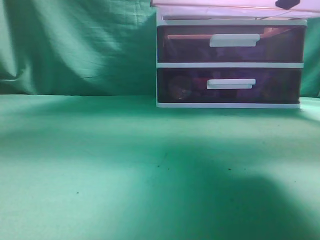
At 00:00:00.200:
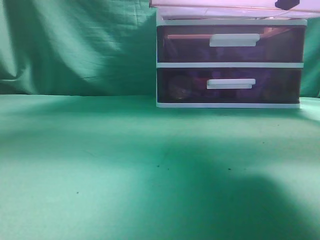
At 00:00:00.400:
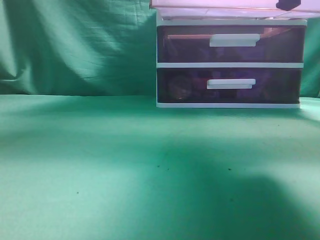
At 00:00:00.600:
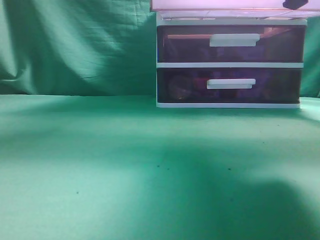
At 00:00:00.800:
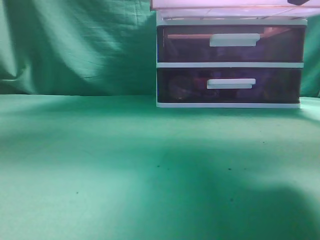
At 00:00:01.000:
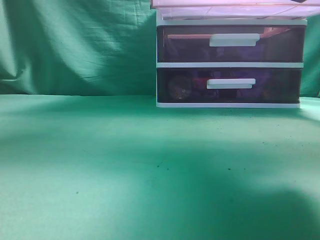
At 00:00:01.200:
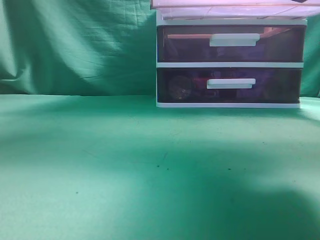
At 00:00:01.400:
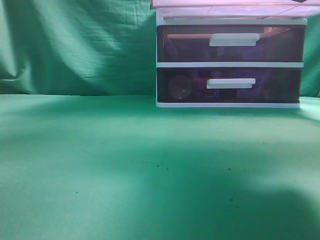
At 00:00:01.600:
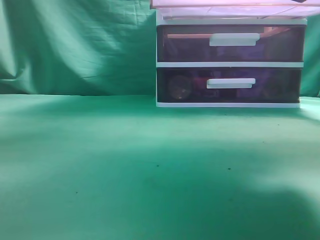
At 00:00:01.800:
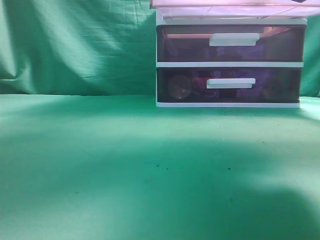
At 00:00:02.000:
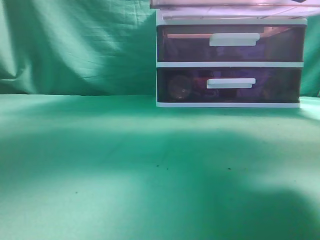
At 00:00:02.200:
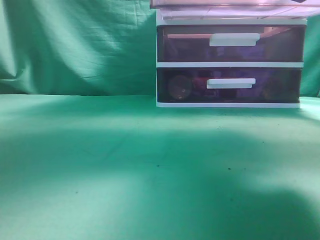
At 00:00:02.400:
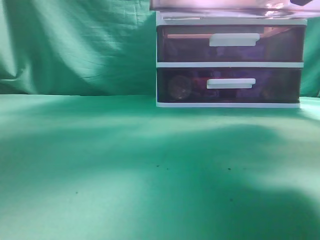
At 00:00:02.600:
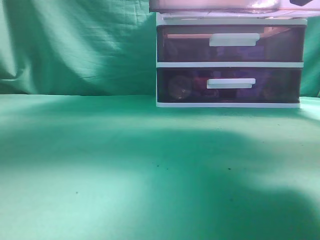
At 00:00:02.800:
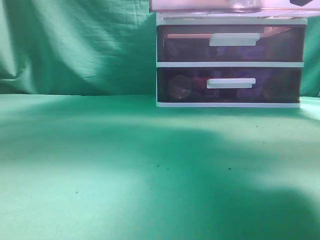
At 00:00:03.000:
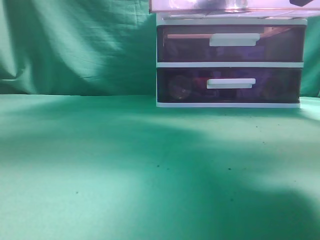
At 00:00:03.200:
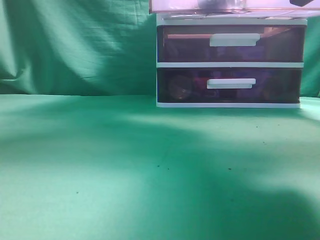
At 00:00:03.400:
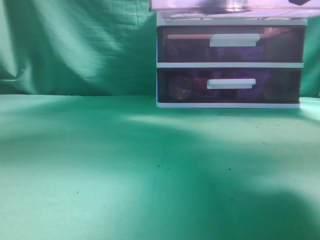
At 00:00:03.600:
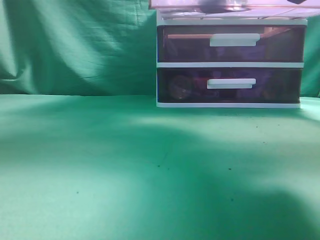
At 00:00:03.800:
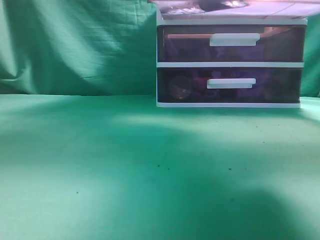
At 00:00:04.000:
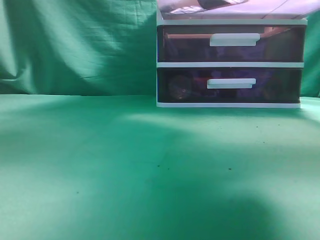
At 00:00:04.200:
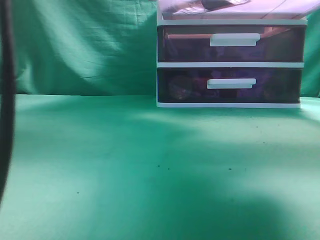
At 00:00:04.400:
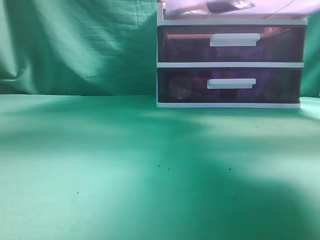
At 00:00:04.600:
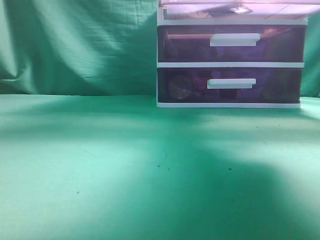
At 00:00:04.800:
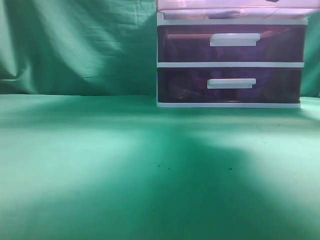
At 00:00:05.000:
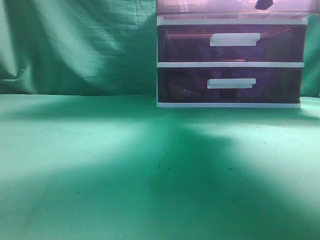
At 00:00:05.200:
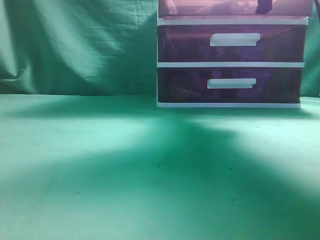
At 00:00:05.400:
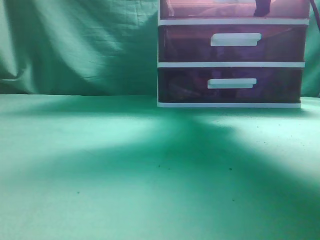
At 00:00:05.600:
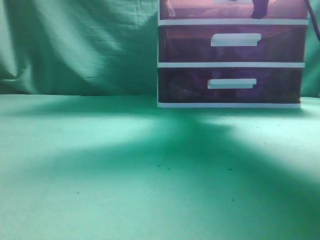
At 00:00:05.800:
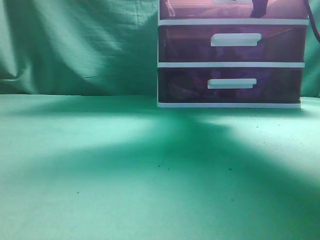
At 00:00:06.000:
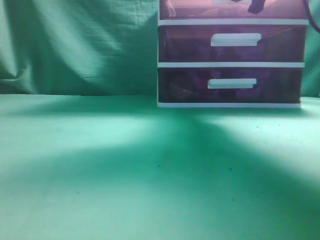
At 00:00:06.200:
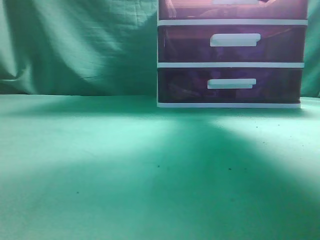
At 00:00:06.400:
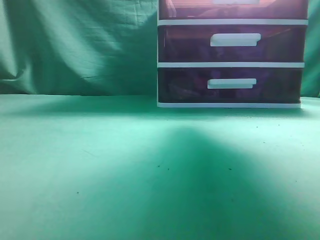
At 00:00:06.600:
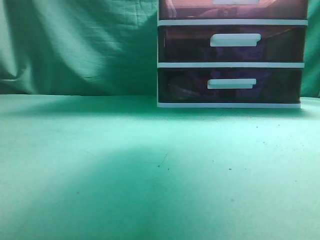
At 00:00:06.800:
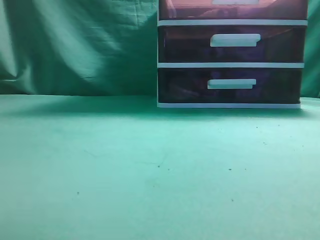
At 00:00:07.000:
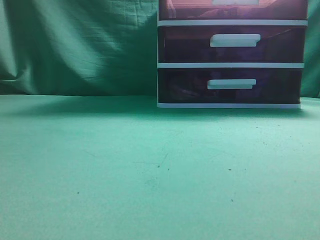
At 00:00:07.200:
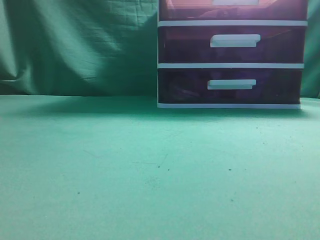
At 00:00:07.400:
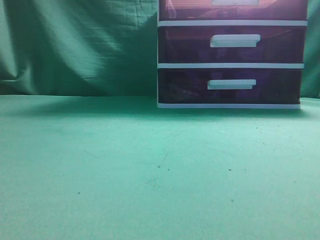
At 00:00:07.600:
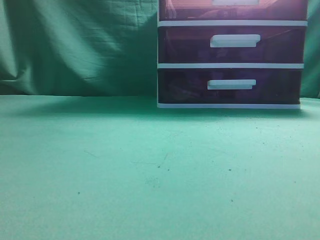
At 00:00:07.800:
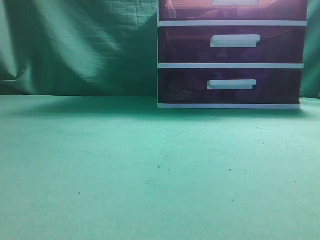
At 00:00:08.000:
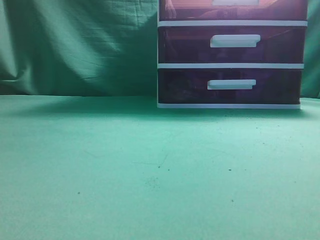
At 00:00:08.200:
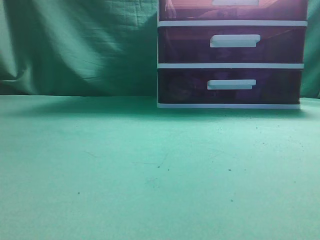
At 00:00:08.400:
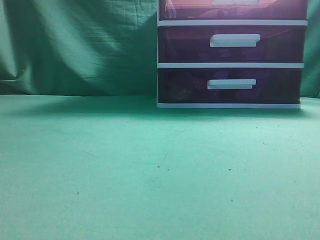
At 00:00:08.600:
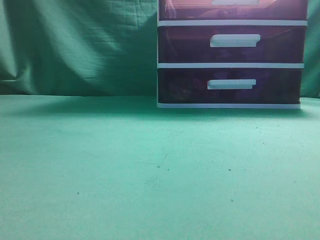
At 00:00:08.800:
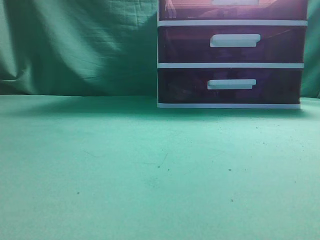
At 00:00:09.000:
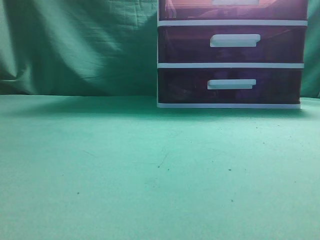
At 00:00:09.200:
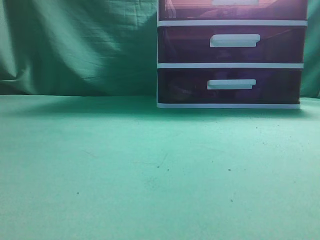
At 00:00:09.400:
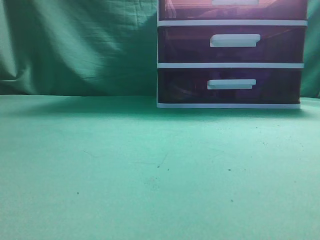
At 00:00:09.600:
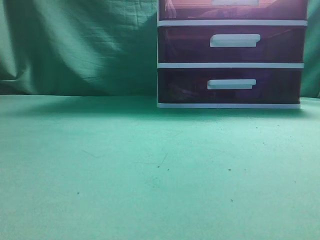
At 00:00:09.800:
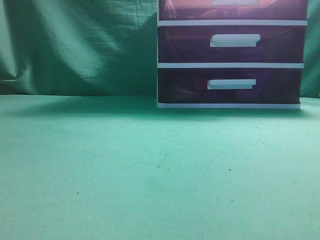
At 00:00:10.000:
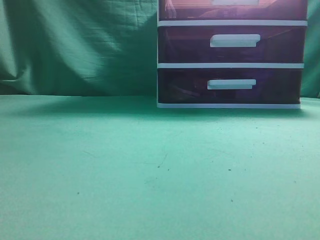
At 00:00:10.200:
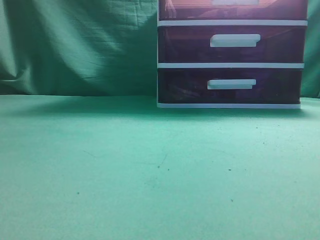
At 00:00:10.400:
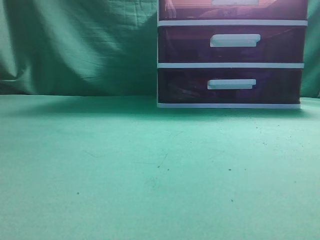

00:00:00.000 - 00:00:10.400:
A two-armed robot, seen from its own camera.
Task of the whole recording: place the water bottle into the drawer.
Step, 00:00:00.600 - 00:00:02.600: Place the water bottle inside the drawer.
Step, 00:00:02.800 - 00:00:06.400: Close the drawer.
00:00:00.000 - 00:00:01.400: The left gripper shifts approximately 30 cm to the right, forward and upward.
00:00:01.400 - 00:00:03.000: The left gripper travels forward by about 5 cm, and travels downward and back again, roughly 5 cm each way.
00:00:03.000 - 00:00:04.400: The right gripper ends up approximately 5 cm from where it was. Meanwhile the left gripper goes approximately 20 cm backward, to the left and downward, and closes up.
00:00:04.400 - 00:00:06.000: The left gripper shifts by about 5 cm. Meanwhile the right gripper shifts about 10 cm forward, and opens up.
00:00:06.000 - 00:00:07.400: The right gripper is displaced backward and upward by about 30 cm, and closes. The left gripper moves backward and to the left, approximately 15 cm.

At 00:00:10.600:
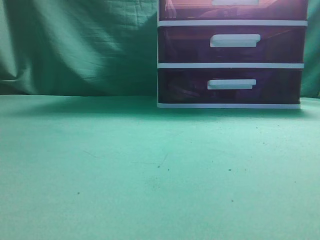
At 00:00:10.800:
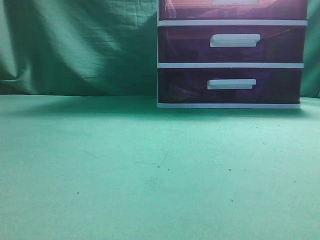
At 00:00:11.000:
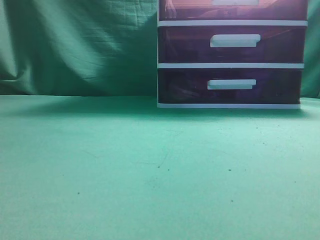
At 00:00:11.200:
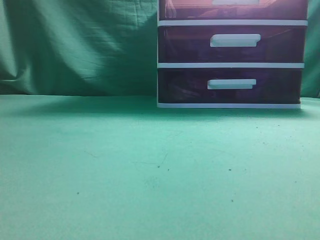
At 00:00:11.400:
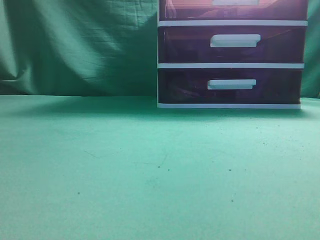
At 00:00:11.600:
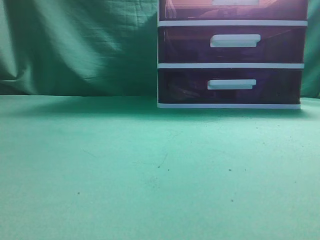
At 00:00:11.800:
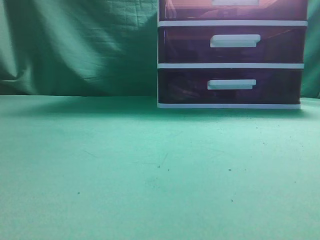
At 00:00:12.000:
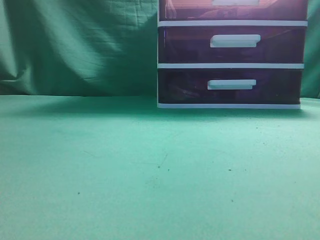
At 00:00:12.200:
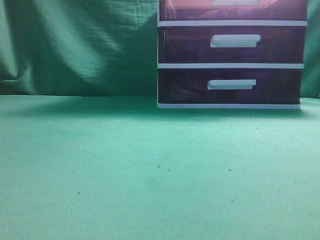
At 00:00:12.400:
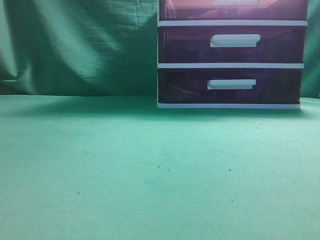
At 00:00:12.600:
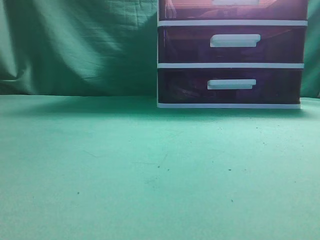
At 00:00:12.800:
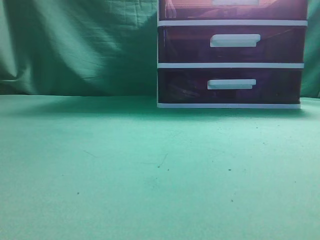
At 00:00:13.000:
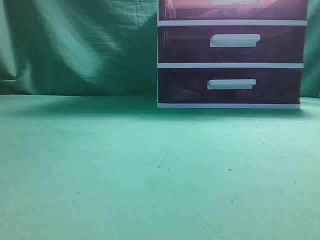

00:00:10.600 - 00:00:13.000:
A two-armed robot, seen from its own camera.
Task of the whole recording: place the water bottle into the drawer.
00:00:11.800 - 00:00:13.000: Both grippers stay about where they are.
